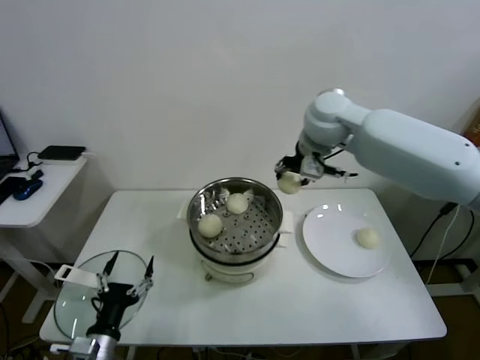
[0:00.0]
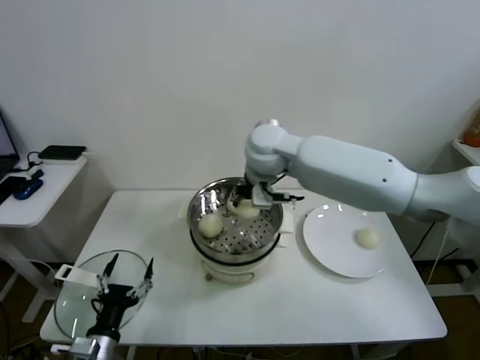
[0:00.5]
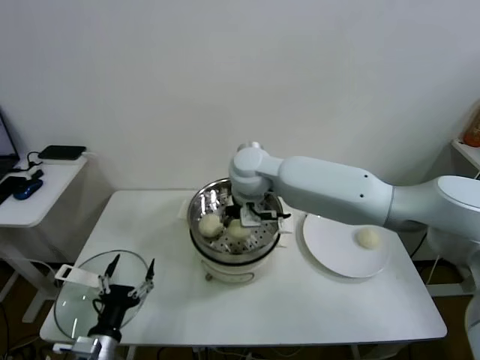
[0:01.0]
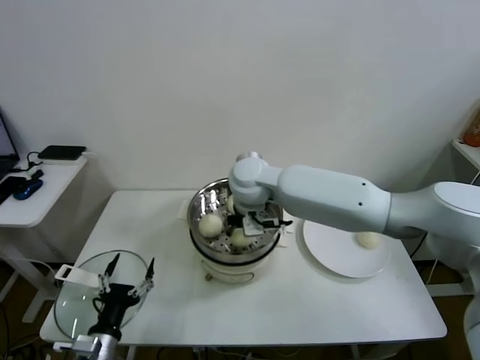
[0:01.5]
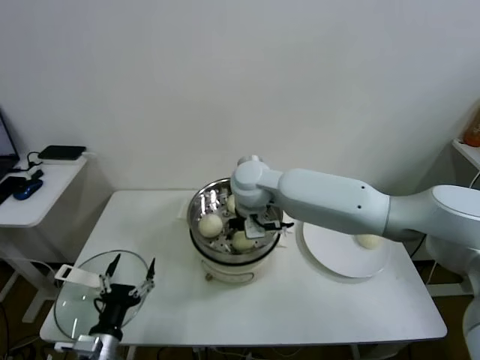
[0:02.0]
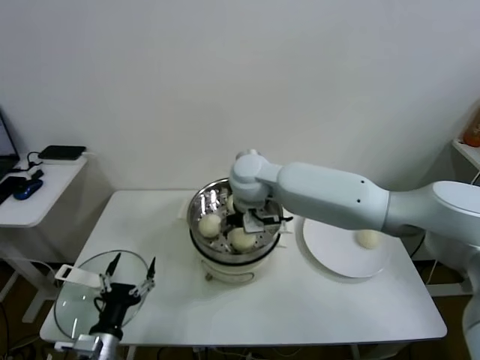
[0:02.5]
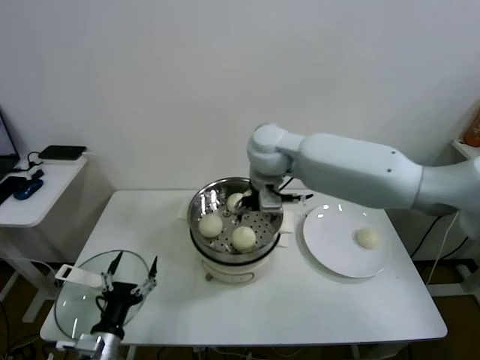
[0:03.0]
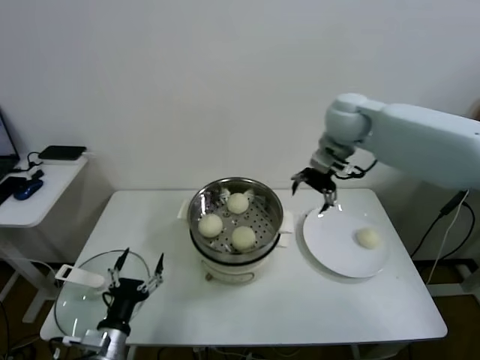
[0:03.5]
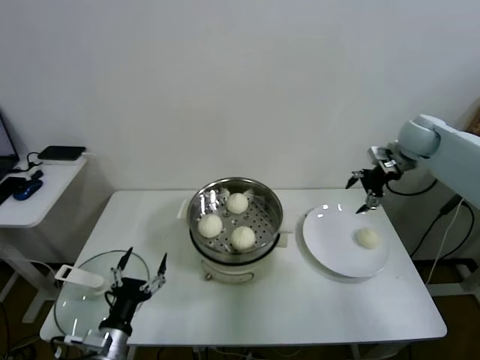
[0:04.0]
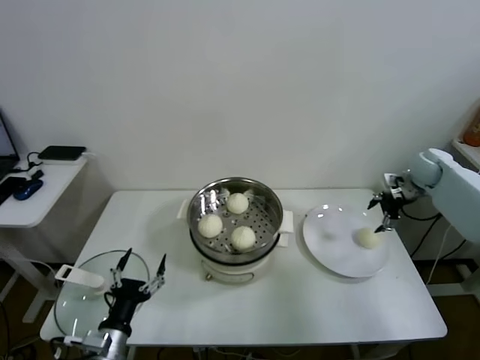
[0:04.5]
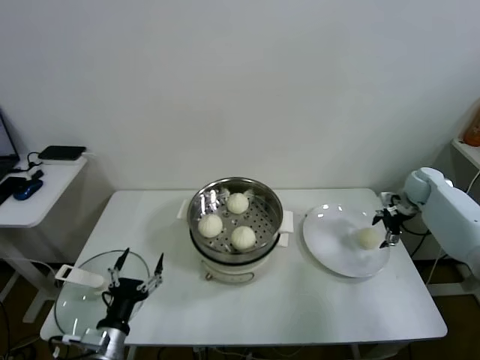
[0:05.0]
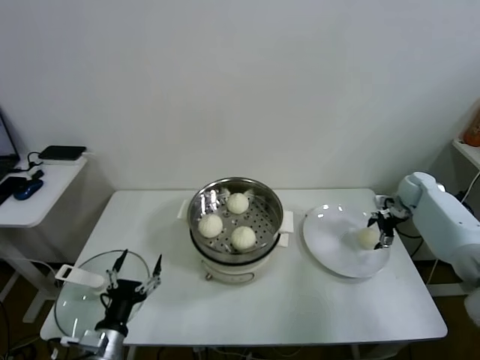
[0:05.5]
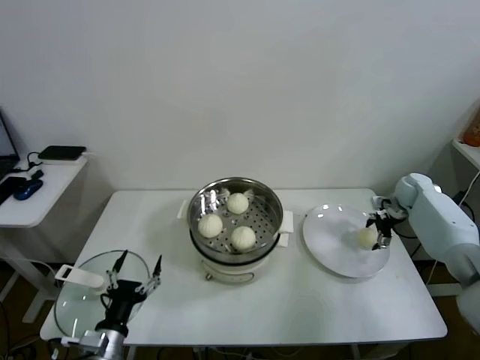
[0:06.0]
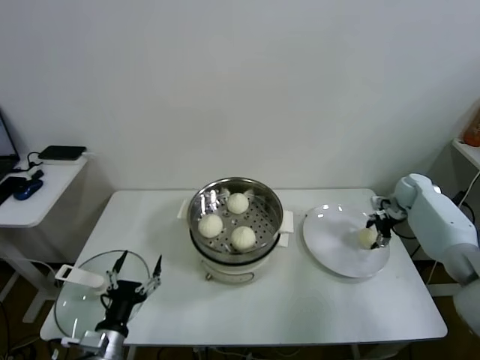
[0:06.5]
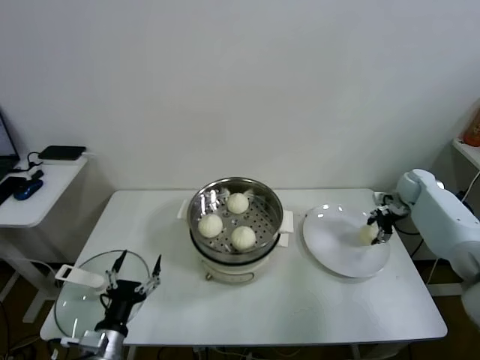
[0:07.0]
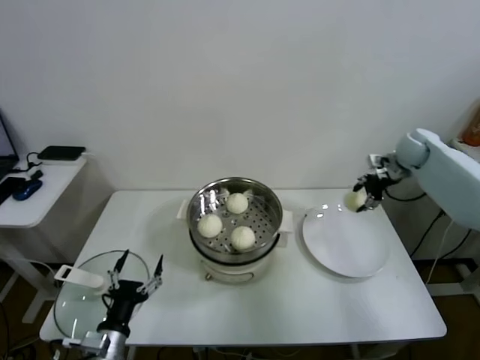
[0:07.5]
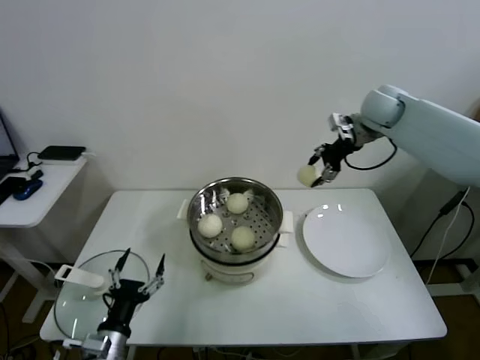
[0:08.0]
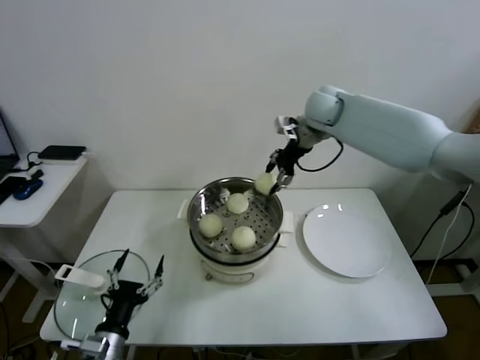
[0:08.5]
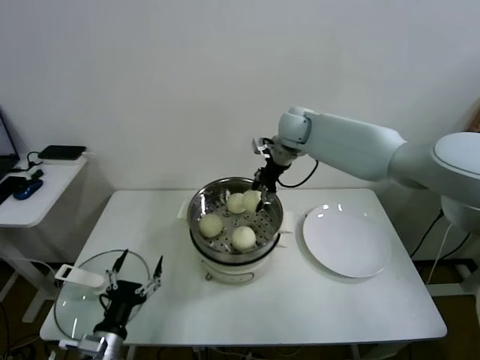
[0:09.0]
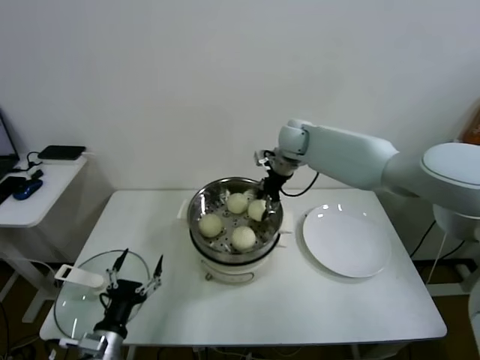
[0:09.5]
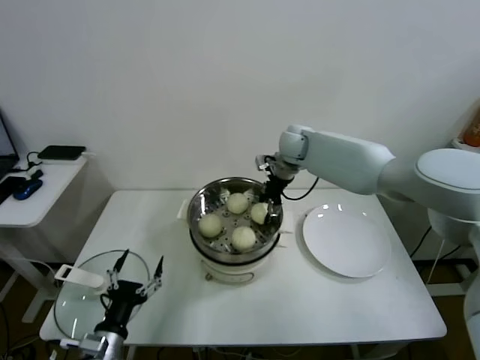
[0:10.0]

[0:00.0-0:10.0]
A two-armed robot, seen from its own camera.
Task of the whole recording: take steamed baozi put them in steamer.
Step, 0:00.0 to 0:02.0: Place the baozi on the steamer with right gripper.
Step, 0:02.5 to 0:06.5: Grasp the baozi in the plate with right gripper.
0:00.0 to 0:02.0: The right gripper goes approximately 20 cm to the left and downward, and opens.
0:02.0 to 0:04.0: The right gripper shifts about 40 cm to the right, and opens its fingers.
0:04.0 to 0:06.0: The right gripper travels downward by approximately 20 cm.
0:06.0 to 0:08.0: The right gripper heads upward and to the left, covering about 30 cm, and closes.
0:08.0 to 0:10.0: The right gripper is displaced to the left and downward by some 20 cm.

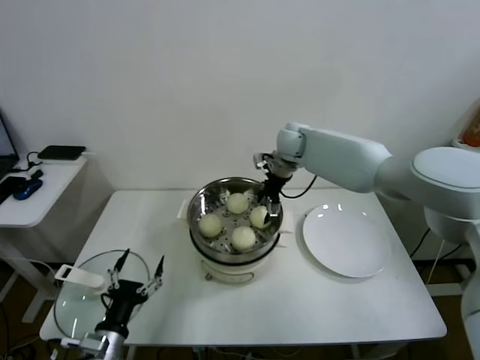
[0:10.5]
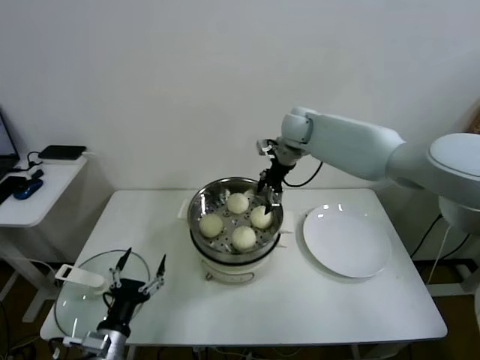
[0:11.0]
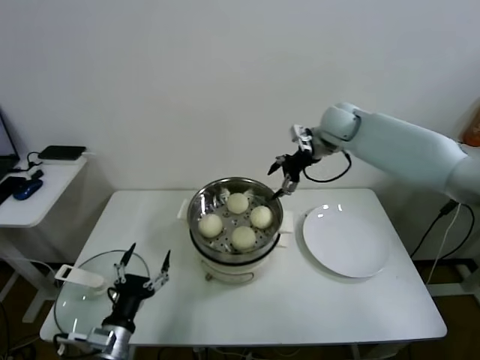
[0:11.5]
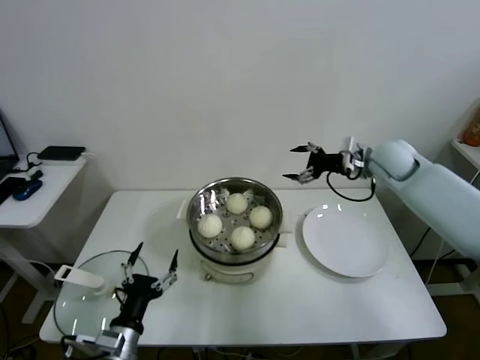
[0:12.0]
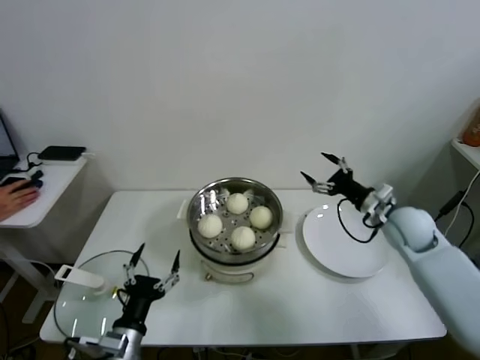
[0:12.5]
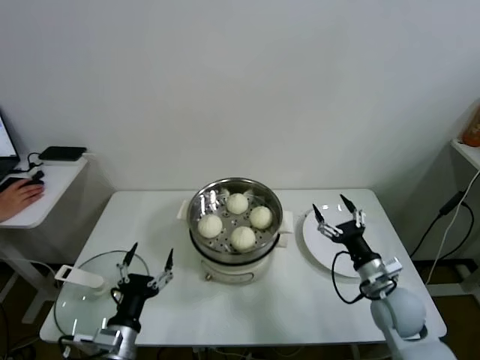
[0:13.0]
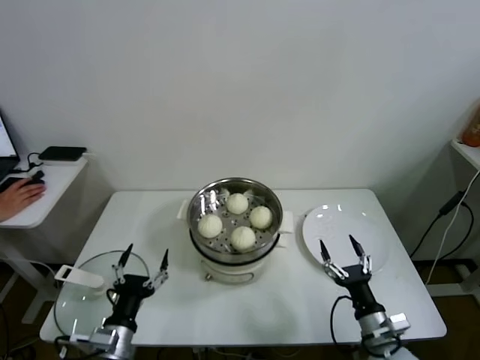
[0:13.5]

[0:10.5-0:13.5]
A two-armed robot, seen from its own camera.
Task of the whole recording: take steamed baozi put them in steamer.
0:10.5 to 0:12.0: The right gripper heads to the right, covering roughly 20 cm.
0:12.0 to 0:13.5: The right gripper heads backward and downward, covering some 40 cm.
